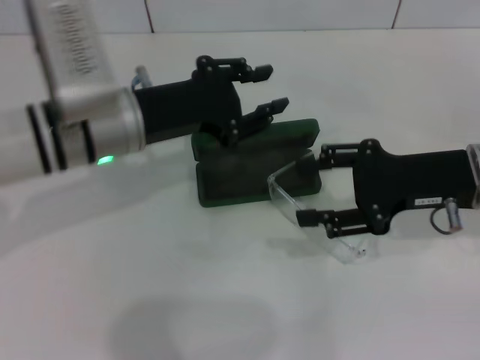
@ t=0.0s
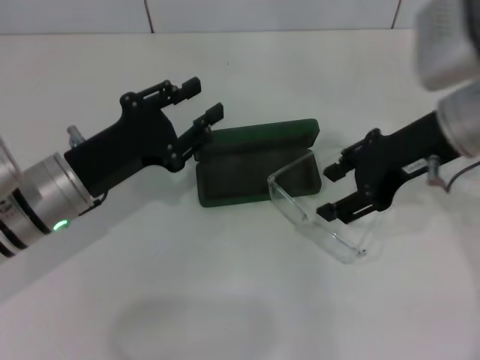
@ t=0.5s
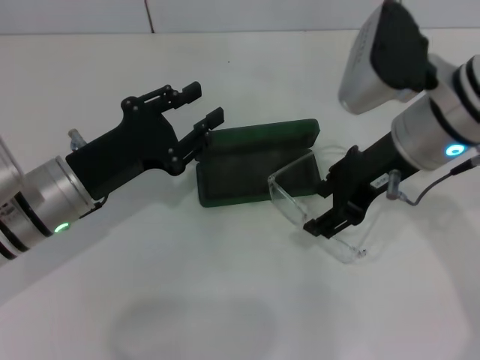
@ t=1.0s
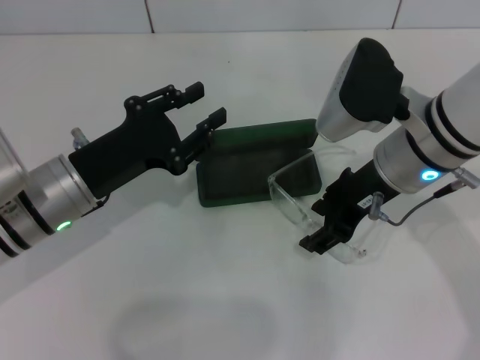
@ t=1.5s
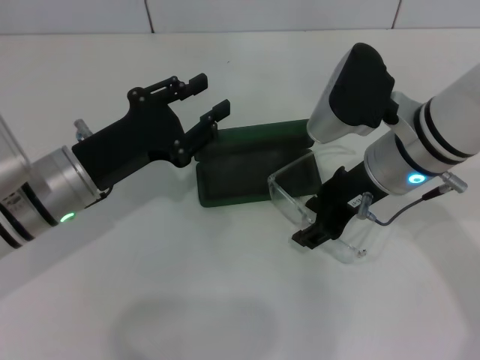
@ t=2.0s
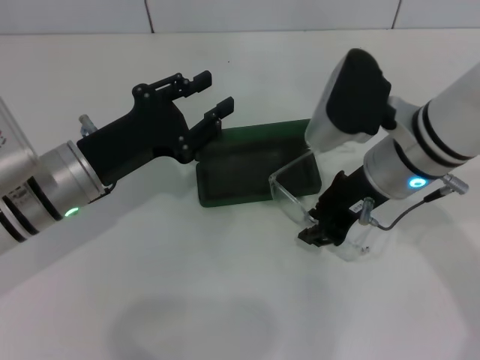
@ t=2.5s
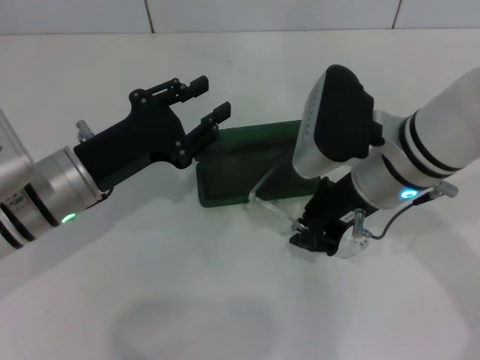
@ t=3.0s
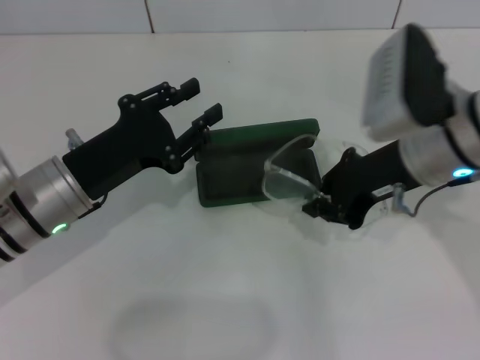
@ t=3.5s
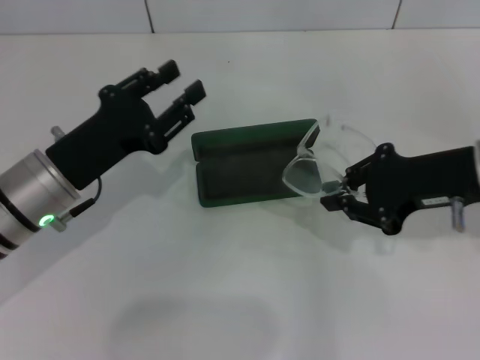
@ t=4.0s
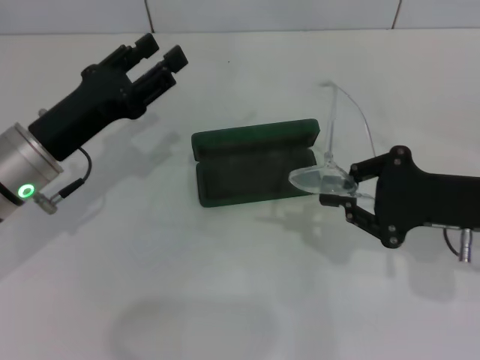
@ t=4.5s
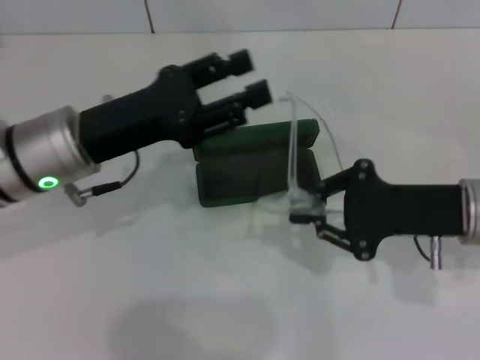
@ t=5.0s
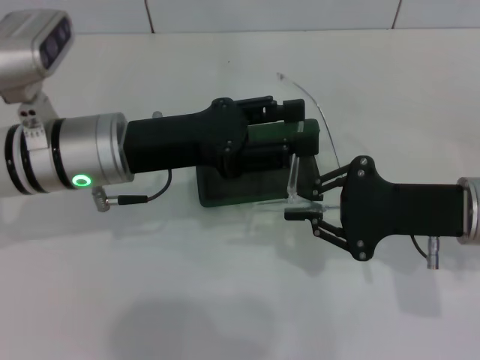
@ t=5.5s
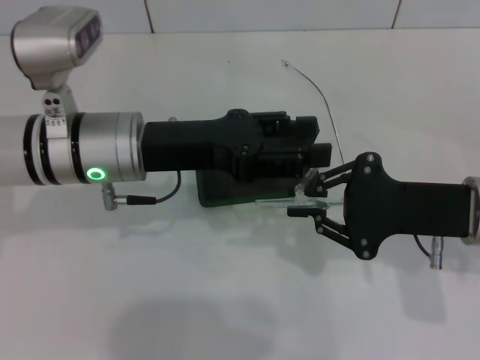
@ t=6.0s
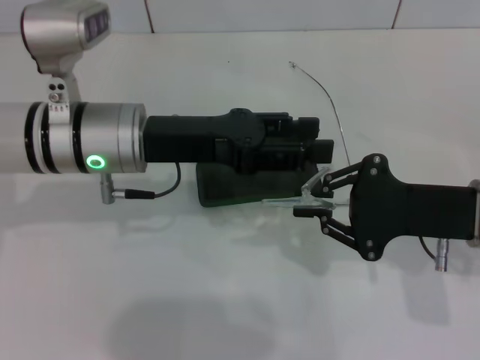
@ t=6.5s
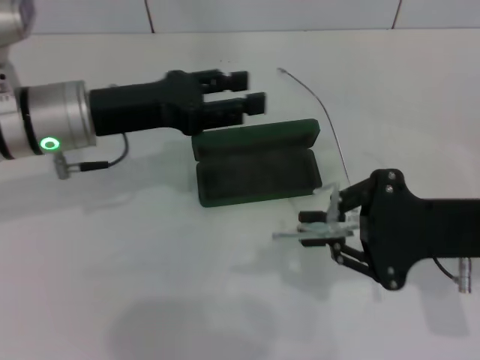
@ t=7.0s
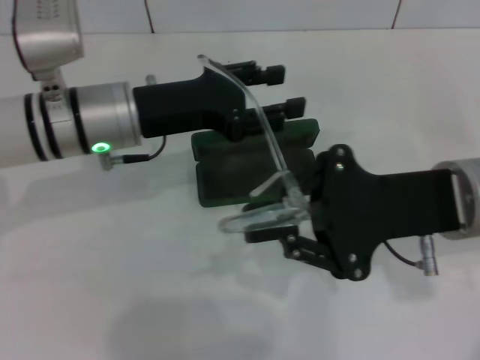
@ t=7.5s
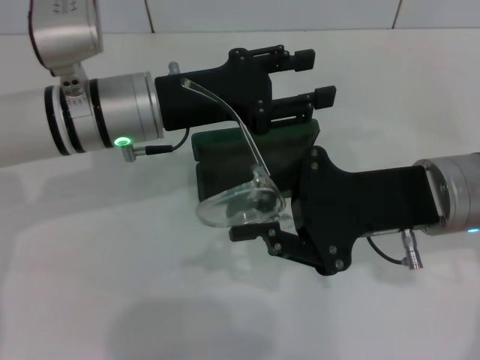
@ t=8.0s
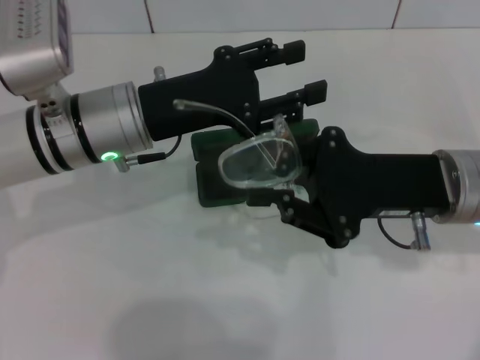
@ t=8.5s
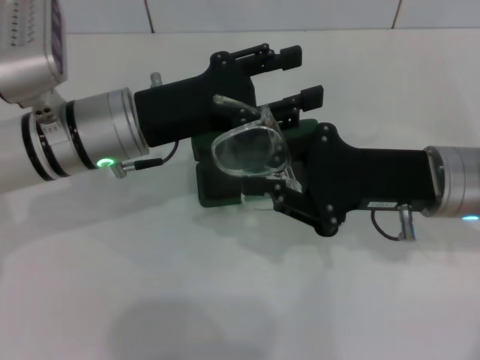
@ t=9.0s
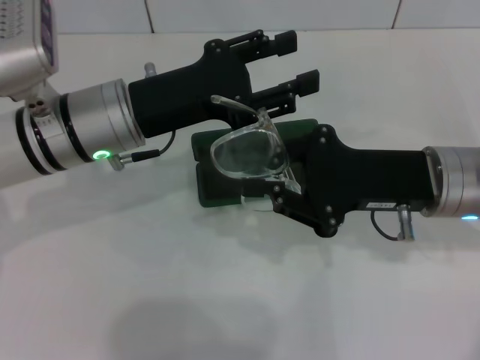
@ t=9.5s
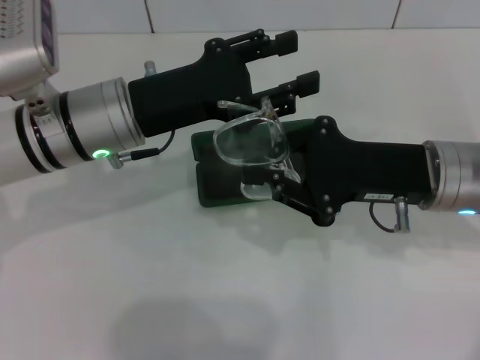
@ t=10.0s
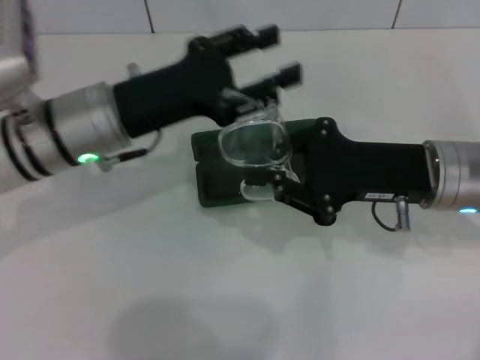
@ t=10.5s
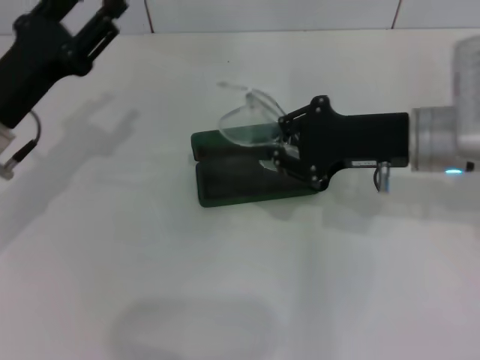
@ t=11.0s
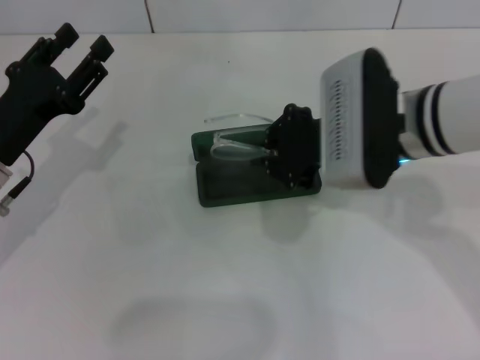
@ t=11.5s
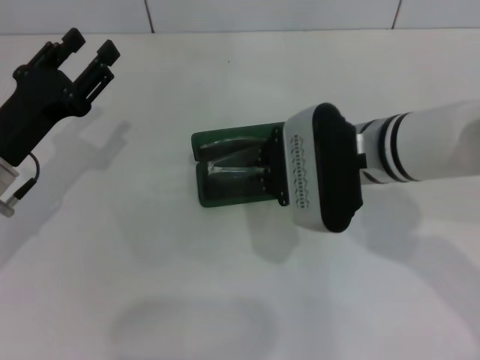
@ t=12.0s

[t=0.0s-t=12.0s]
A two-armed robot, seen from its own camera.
Step, t=0.0s to t=2.5s: Grab the eyeglass frame with your right hand.
Step, t=3.0s to t=10.0s: Fold the frame with your left hand.
t=0.0s to t=2.0s: The right gripper is displaced to the left by some 10 cm. The left gripper travels downward by roughly 5 cm.
t=2.0s to t=4.0s: The right gripper travels to the right by approximately 10 cm, and closes.
t=4.0s to t=6.0s: The left gripper shifts about 10 cm to the right and upward.
t=6.0s to t=8.0s: The right gripper travels to the left by some 5 cm.
t=10.0s to t=12.0s: The right gripper goes some 10 cm to the left; the left gripper is displaced to the left and downward by roughly 15 cm.

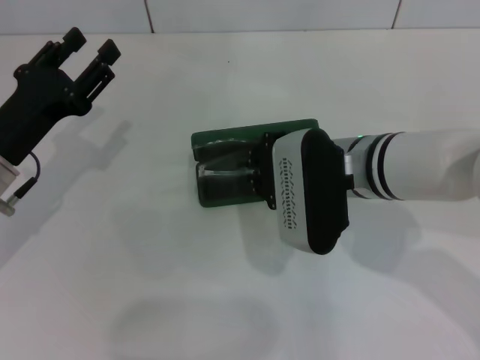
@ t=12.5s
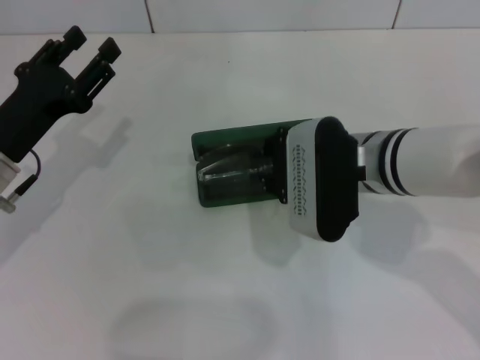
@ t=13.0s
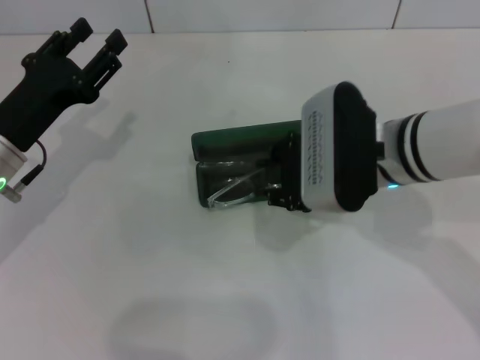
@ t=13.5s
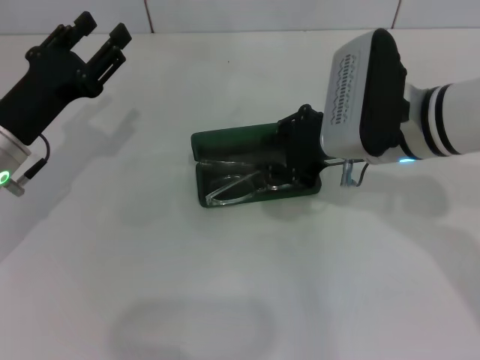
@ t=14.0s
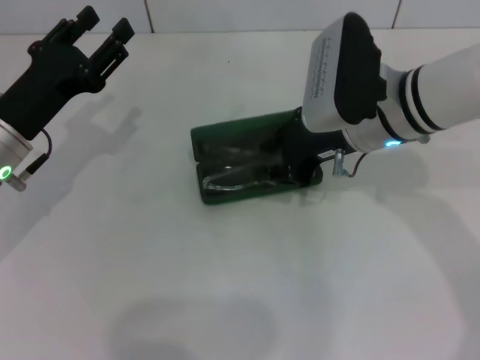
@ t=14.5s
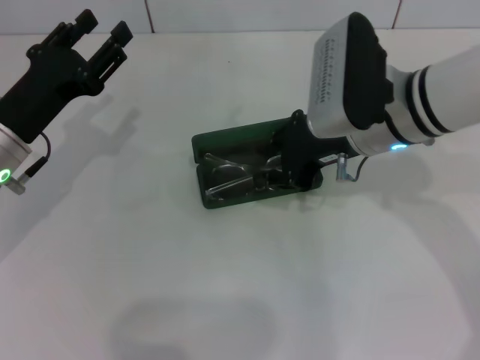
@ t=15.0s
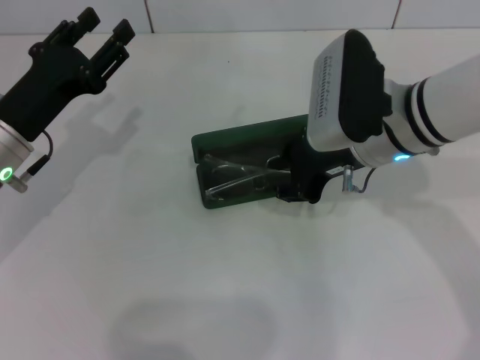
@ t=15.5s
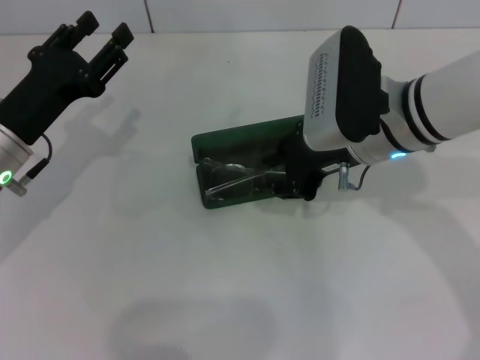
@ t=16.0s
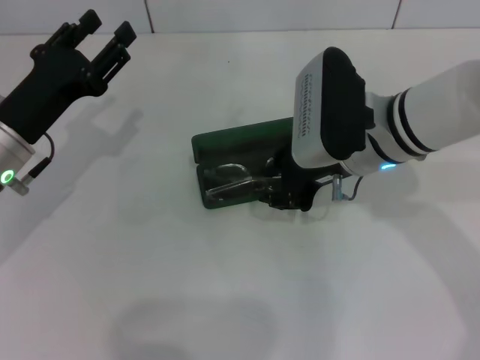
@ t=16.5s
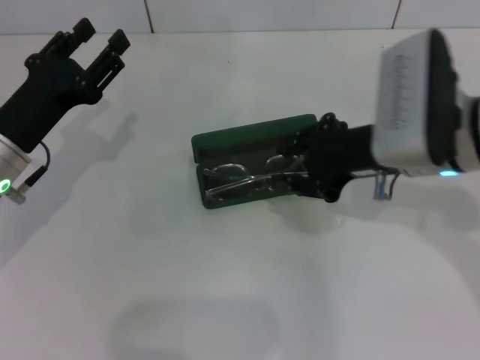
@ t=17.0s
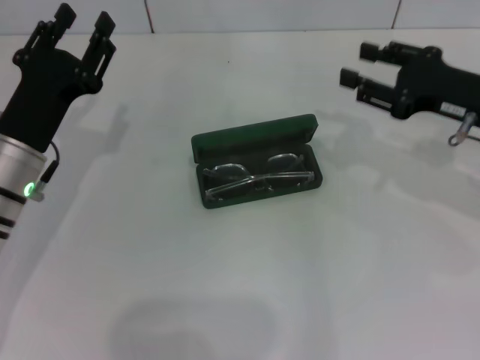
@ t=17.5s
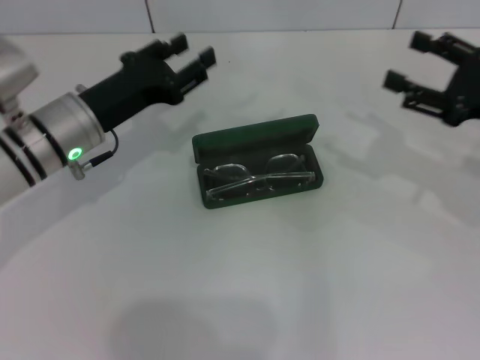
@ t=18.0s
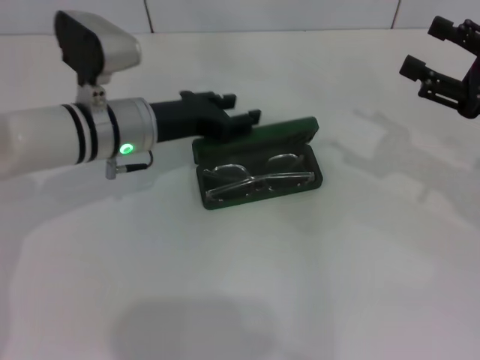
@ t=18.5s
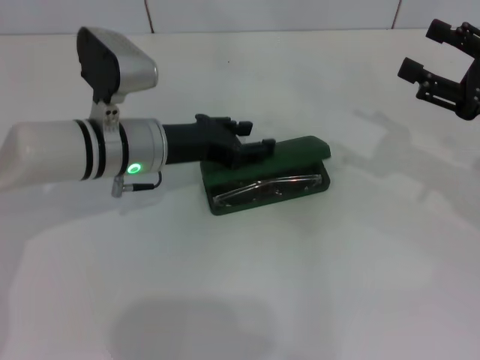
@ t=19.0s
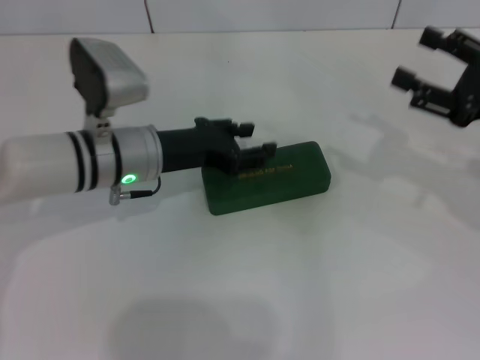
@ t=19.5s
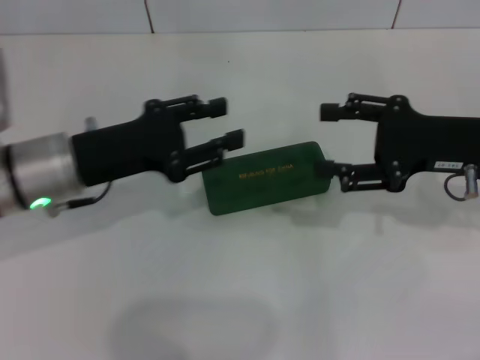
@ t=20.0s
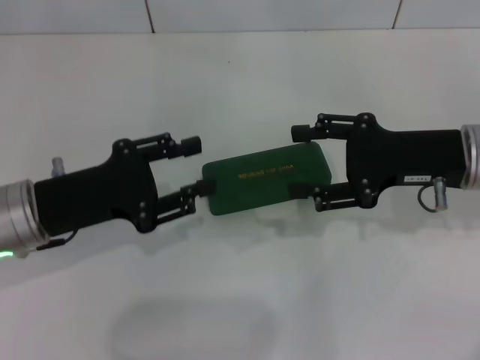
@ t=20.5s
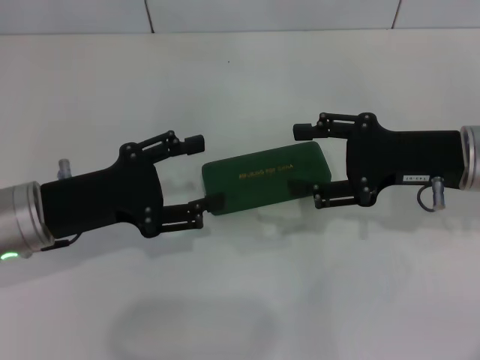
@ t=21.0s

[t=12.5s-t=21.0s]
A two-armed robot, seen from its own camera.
Step, t=12.5s to t=14.5s: Put the glasses into the case with your right hand.
Step, t=15.0s to t=19.0s: Close the glasses case with your left hand.
t=12.5s to t=14.5s: The right gripper shifts by approximately 5 cm.
t=14.5s to t=16.5s: There are only small adjustments of the grippers.
t=16.5s to t=19.0s: The left gripper heads to the right and forward, covering about 10 cm, while the right gripper moves to the right, roughly 20 cm, and opens its fingers.
t=19.0s to t=21.0s: The right gripper heads to the left, covering some 10 cm, while the left gripper shifts about 15 cm backward and to the left.
